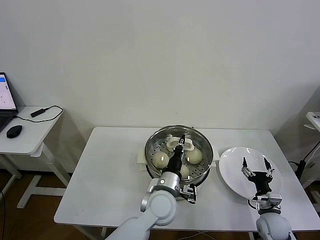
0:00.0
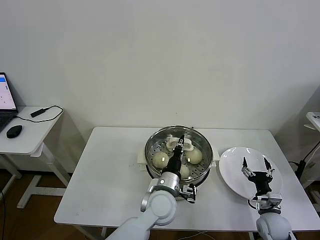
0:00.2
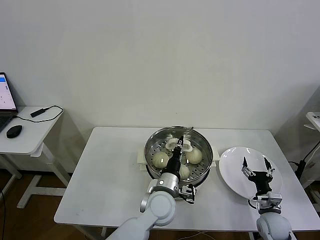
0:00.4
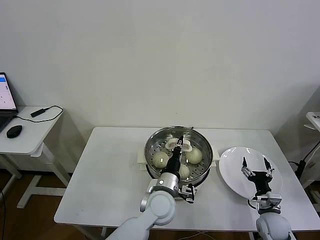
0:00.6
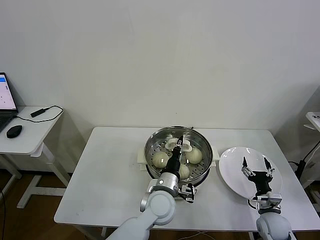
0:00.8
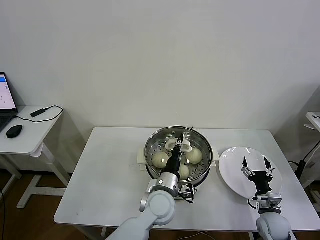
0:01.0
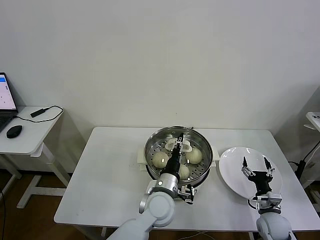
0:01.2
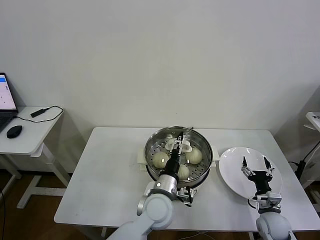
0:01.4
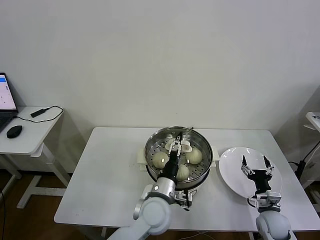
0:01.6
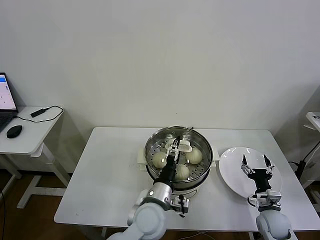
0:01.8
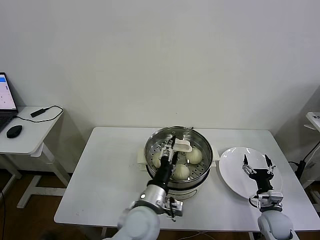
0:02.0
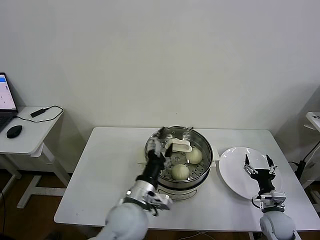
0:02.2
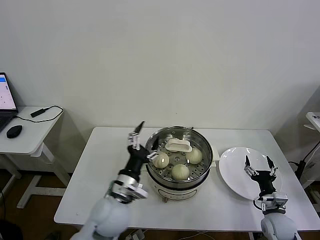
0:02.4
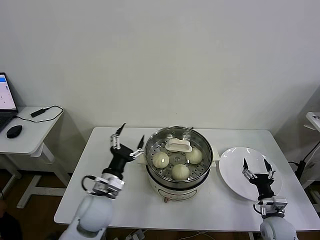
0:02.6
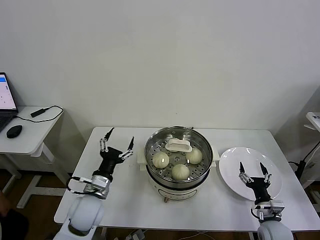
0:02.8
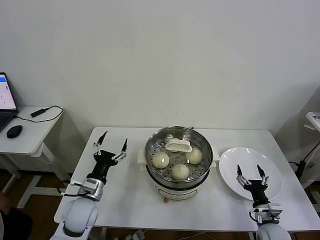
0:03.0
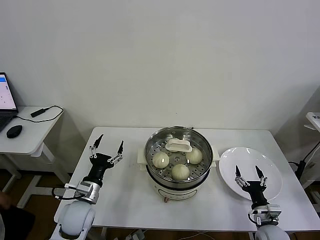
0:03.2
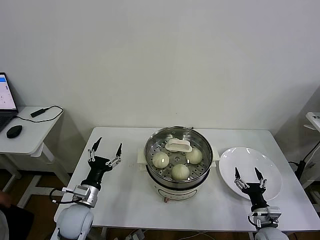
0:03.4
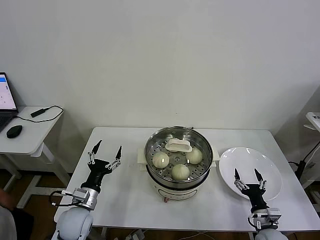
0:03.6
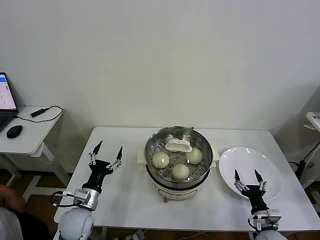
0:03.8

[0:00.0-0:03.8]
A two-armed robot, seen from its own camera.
Task of the whole recording: take steamed baozi put them in steamer then cover it.
0:00.0 to 0:01.2: The left gripper opens.
0:01.2 to 0:02.6: The left gripper is displaced to the left by some 15 cm, and opens.
0:02.6 to 0:03.8: The left gripper shifts some 15 cm to the left and downward, while the right gripper changes place by approximately 5 cm.
